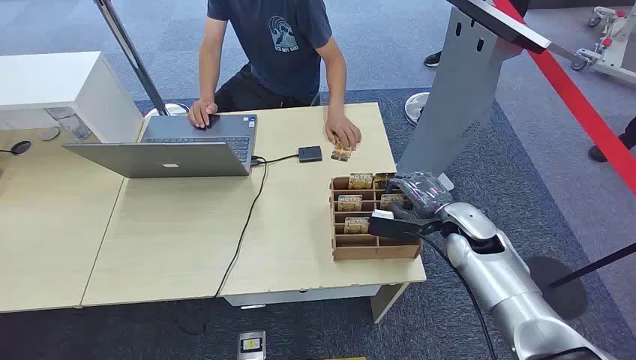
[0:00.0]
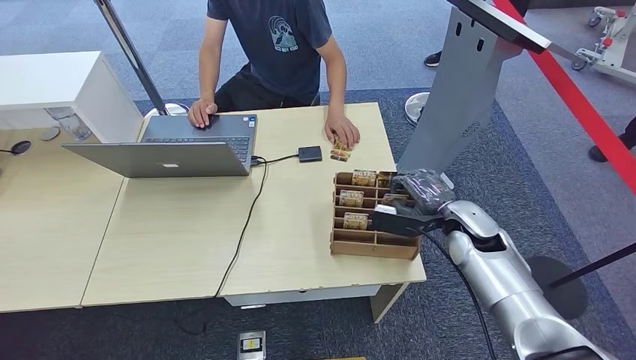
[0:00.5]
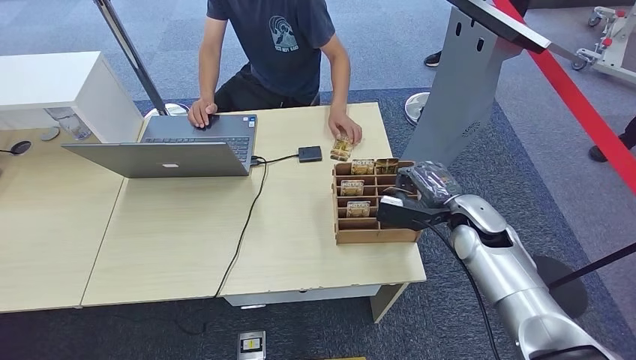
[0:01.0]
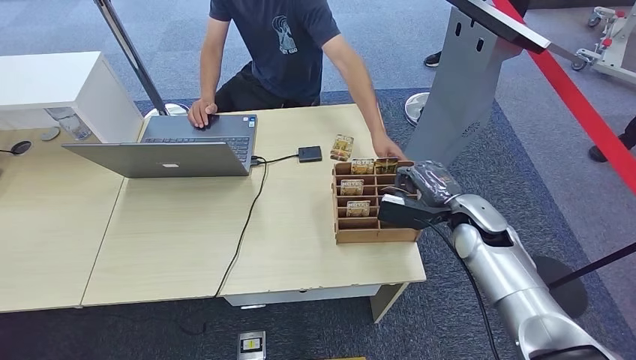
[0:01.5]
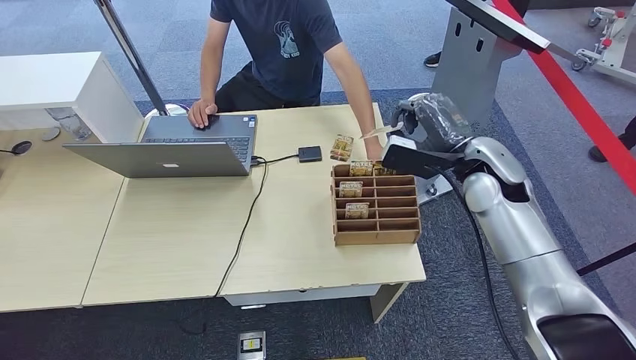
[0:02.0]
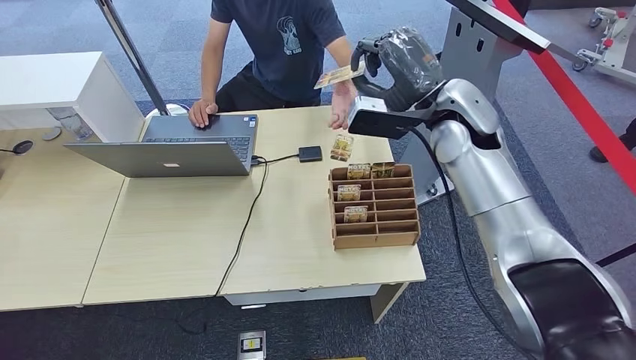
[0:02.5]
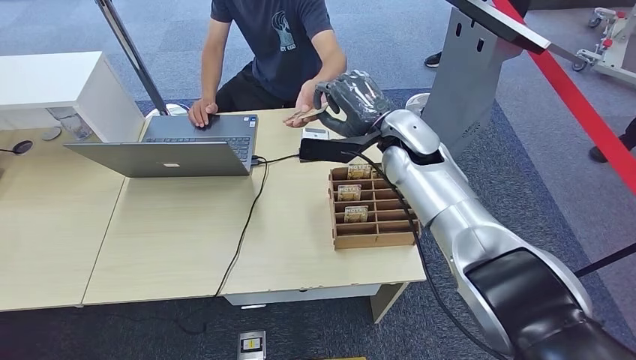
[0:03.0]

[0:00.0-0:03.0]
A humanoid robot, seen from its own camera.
Step, 0:00.0 to 0:02.0: Pick up the room card from the card holder.
Step, 0:02.5 to 0:03.0: Hand the room card to the target.
0:01.5 to 0:03.0: The right hand moves to the left, upward and forward, roughly 20 cm.
